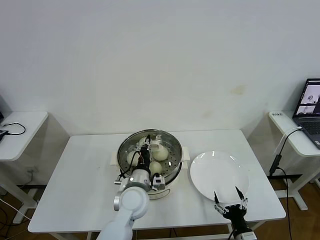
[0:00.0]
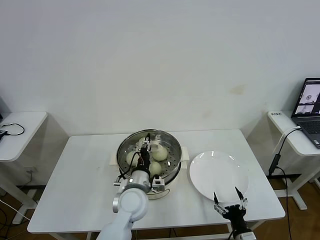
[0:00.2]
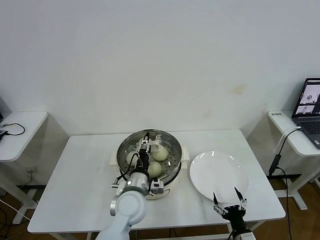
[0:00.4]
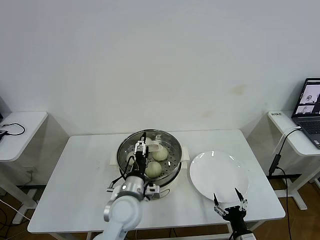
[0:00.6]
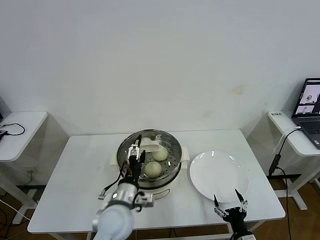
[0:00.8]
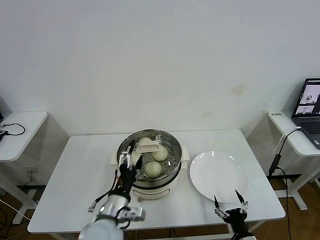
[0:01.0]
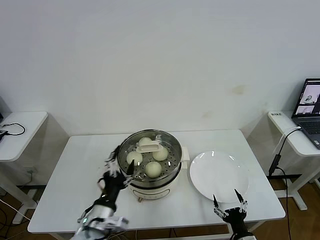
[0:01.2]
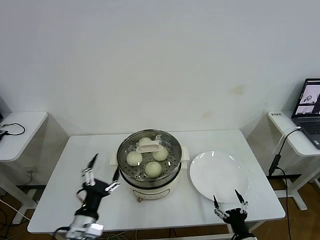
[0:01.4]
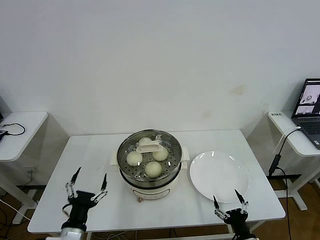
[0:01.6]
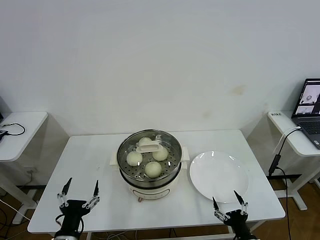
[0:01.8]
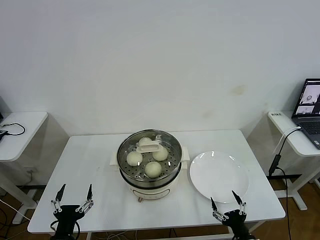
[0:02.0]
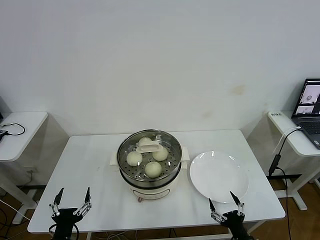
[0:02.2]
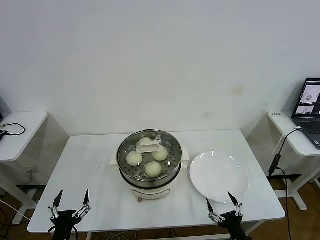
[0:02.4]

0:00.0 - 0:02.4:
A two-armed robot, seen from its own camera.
Task of the whole recording: take steamed baozi put them in steamer then cover it.
0:00.0 - 0:01.2: The left gripper is displaced backward and to the left by some 15 cm, and opens up.
0:01.2 - 0:02.4: The left gripper travels to the left, backward and downward by approximately 15 cm.

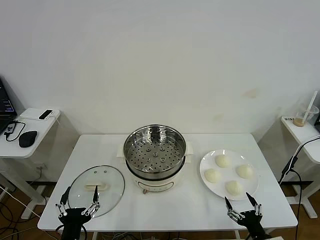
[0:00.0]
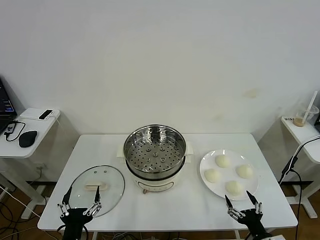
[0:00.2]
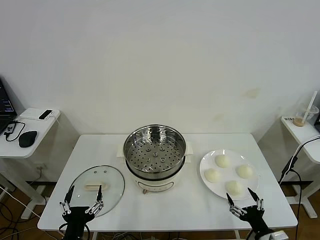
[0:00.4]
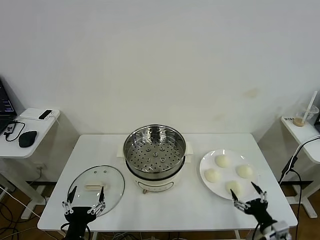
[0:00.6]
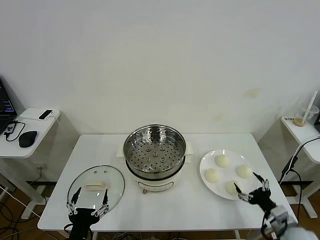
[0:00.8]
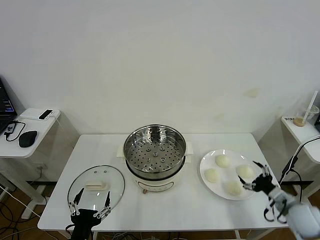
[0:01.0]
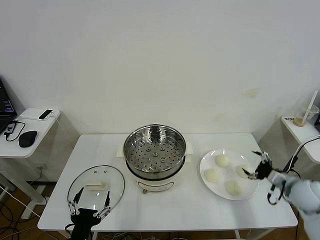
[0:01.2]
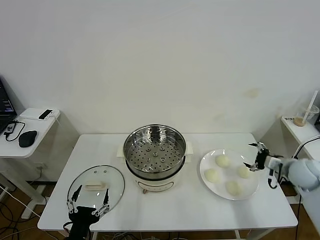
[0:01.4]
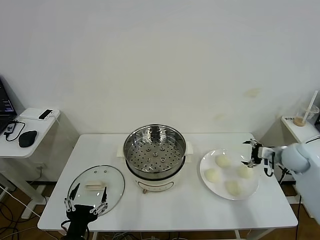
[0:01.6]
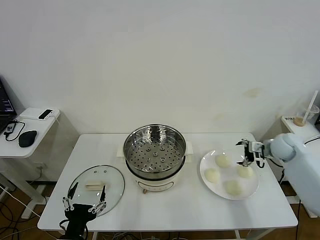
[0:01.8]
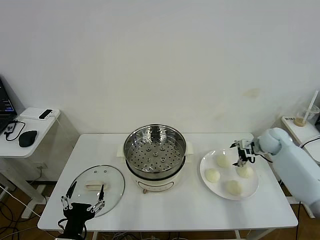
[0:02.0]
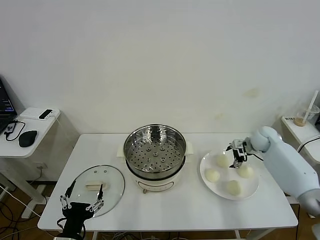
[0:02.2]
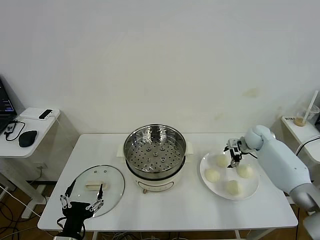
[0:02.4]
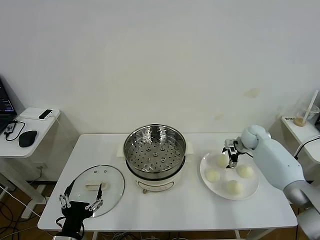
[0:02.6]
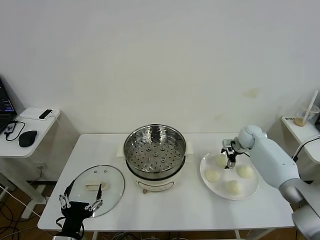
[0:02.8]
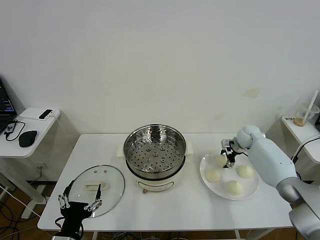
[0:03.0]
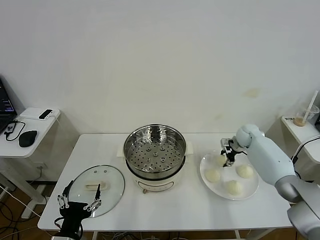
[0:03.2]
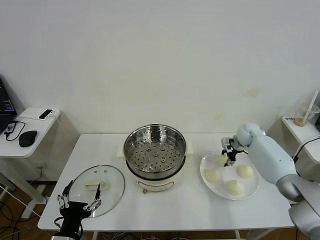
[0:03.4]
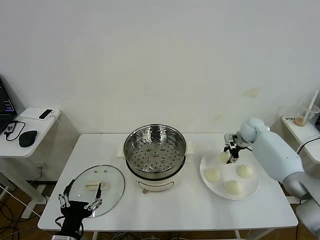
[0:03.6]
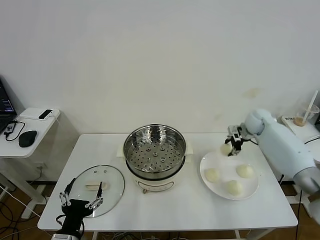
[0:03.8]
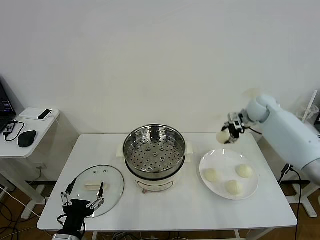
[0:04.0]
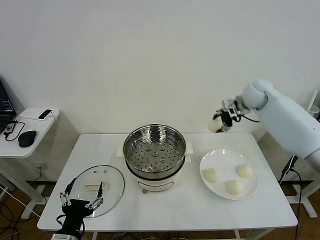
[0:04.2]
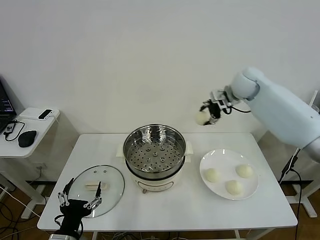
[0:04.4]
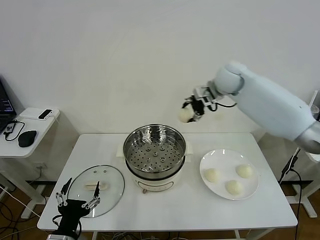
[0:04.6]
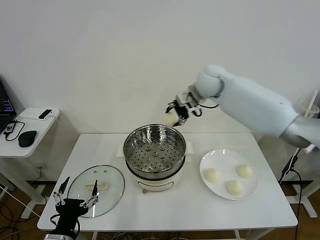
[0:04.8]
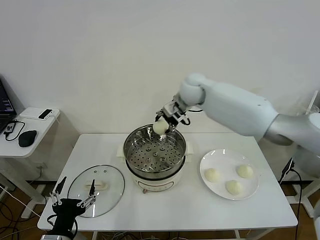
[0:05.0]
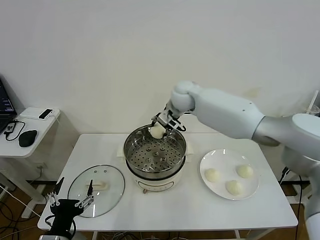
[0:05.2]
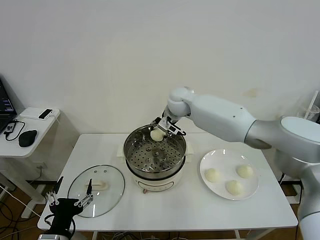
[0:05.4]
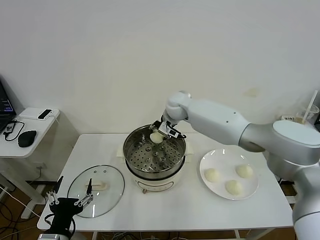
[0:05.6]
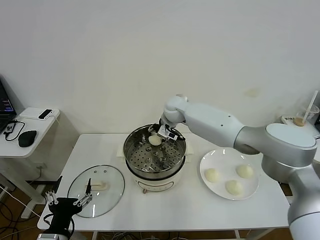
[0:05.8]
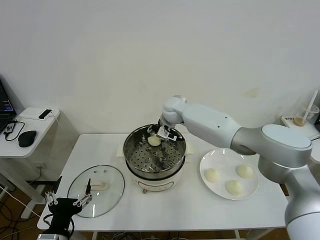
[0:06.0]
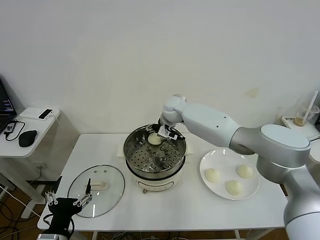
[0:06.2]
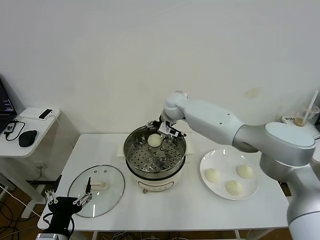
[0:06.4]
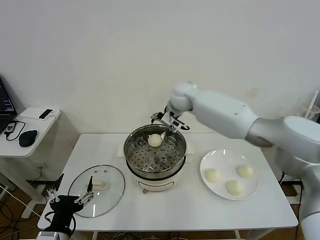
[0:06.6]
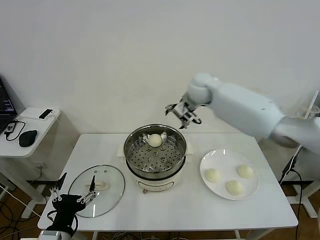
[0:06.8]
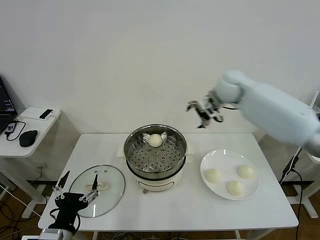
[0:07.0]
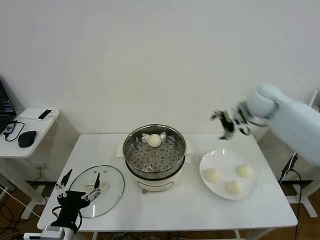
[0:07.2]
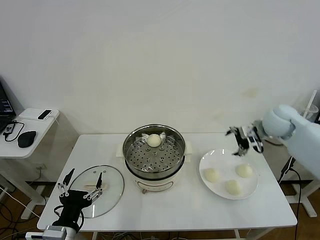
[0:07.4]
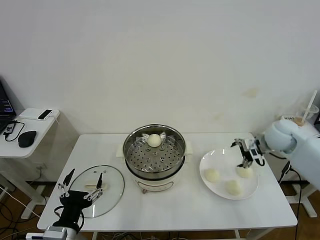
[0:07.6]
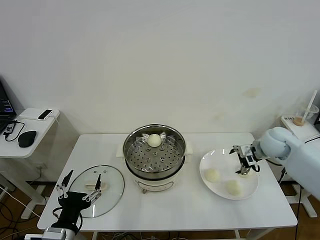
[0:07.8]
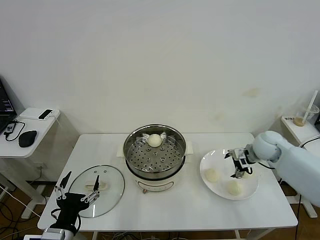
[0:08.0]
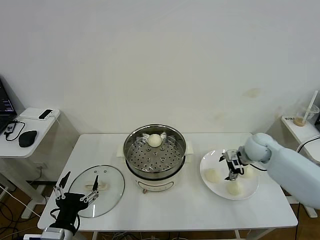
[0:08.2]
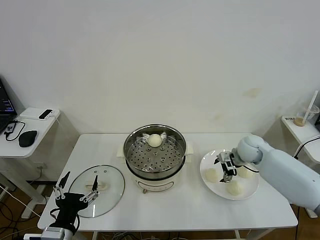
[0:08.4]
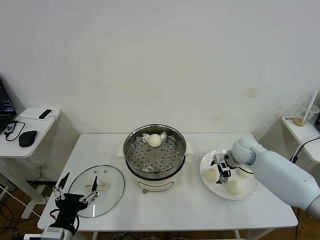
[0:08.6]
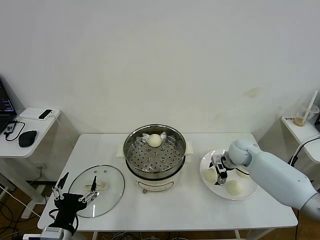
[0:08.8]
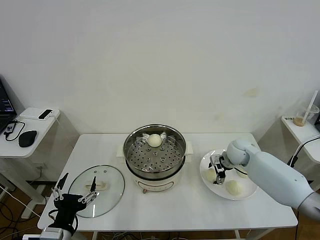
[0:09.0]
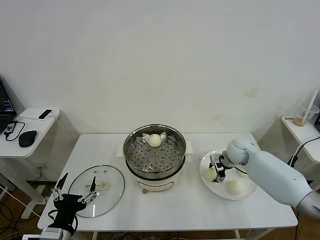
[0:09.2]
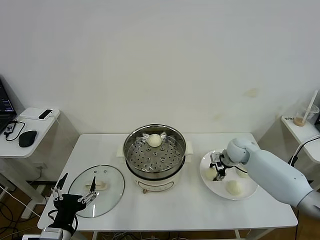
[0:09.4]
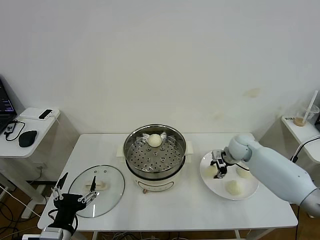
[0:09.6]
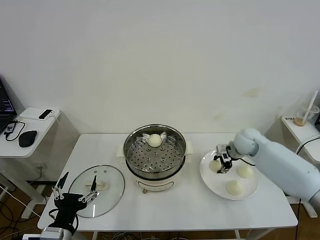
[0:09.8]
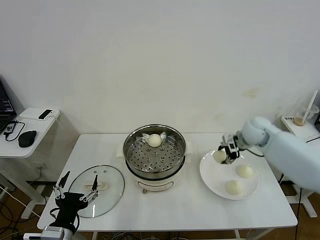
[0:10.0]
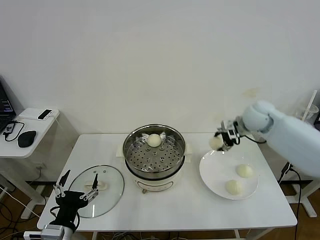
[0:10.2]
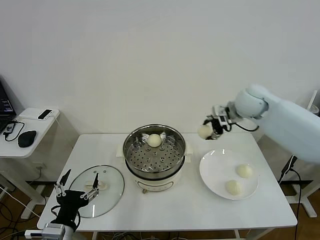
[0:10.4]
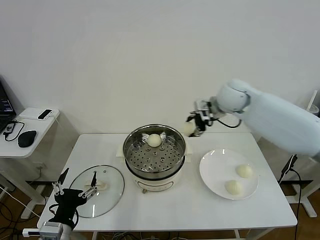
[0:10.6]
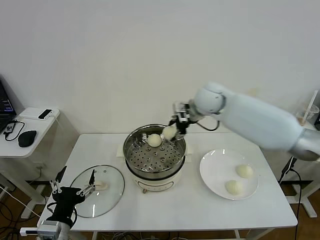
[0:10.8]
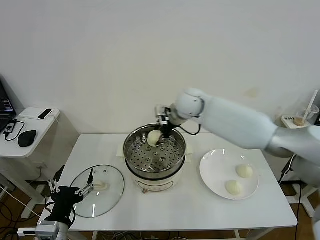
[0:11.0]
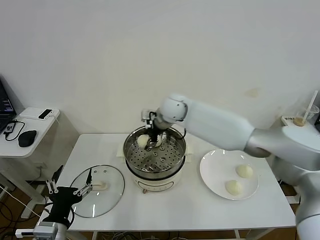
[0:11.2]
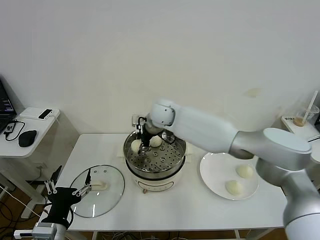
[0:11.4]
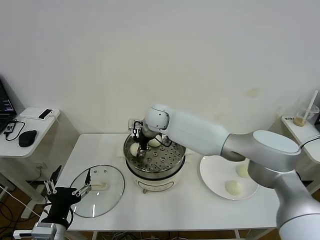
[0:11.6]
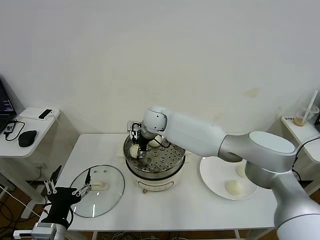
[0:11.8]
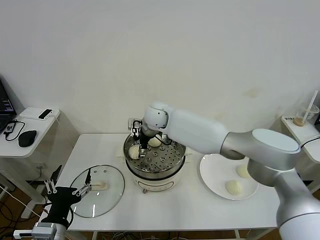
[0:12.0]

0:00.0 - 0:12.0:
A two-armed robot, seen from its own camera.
Task of the whole recording: take steamed baozi put them in steamer then cover it.
Step, 0:00.0 - 0:03.2: Grasp the baozi in the plate with right gripper.
Step, 0:03.4 - 0:06.4: Place the baozi on the steamer with right gripper.
Step, 0:06.6 - 0:09.2: Grasp the baozi in the plate with right gripper.
0:01.6 - 0:03.0: The right gripper goes approximately 15 cm forward, to the left and downward, and closes.
0:03.0 - 0:04.4: The right gripper shifts approximately 30 cm upward and to the left.
0:04.4 - 0:06.0: The right gripper travels to the left and downward by approximately 25 cm.
0:06.0 - 0:07.6: The right gripper shifts about 35 cm to the right and backward, and opens.
0:07.6 - 0:09.0: The right gripper heads downward and to the left, covering some 15 cm.
0:09.0 - 0:10.4: The right gripper moves upward, roughly 25 cm, and closes its fingers.
0:10.4 - 0:12.0: The right gripper heads to the left, covering approximately 25 cm, and opens up.

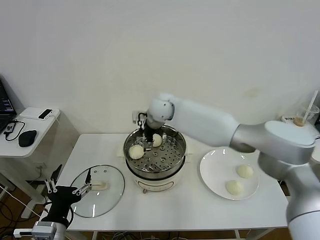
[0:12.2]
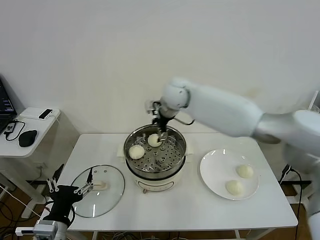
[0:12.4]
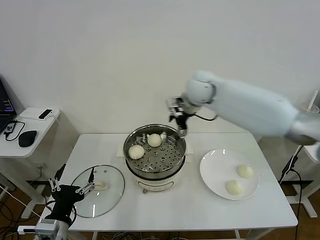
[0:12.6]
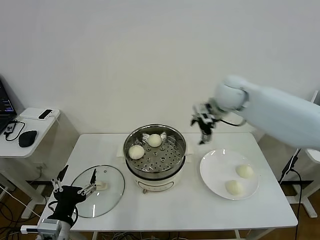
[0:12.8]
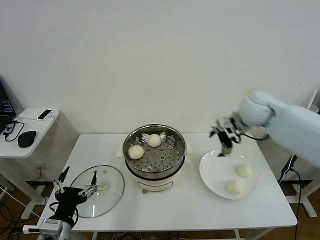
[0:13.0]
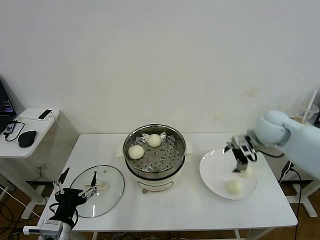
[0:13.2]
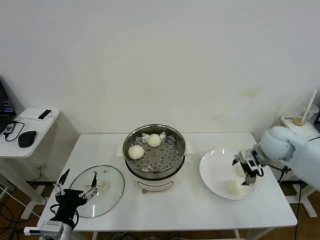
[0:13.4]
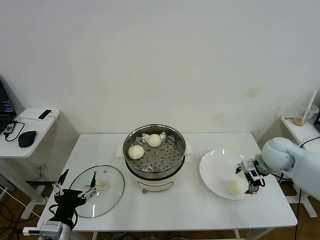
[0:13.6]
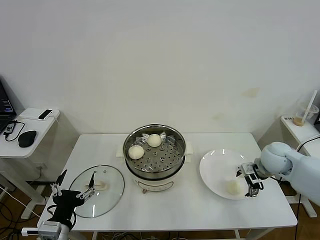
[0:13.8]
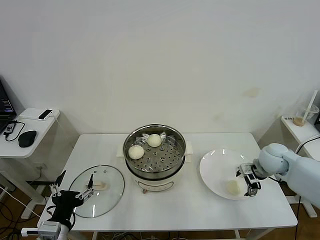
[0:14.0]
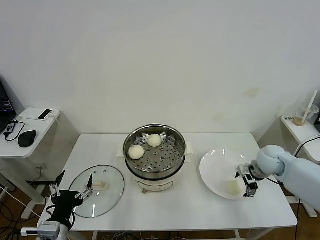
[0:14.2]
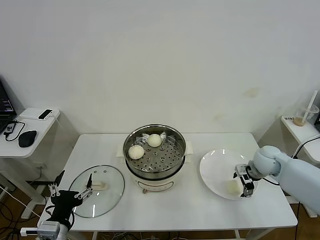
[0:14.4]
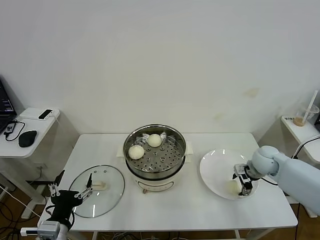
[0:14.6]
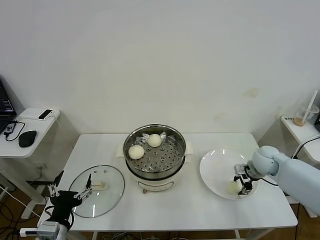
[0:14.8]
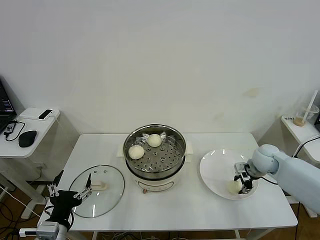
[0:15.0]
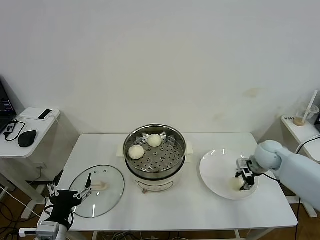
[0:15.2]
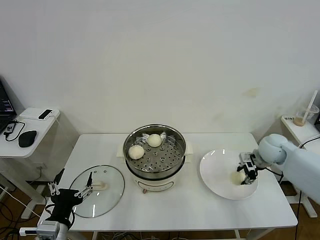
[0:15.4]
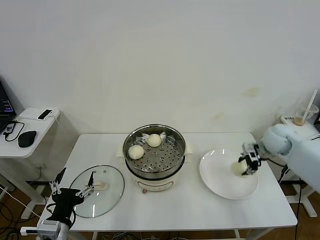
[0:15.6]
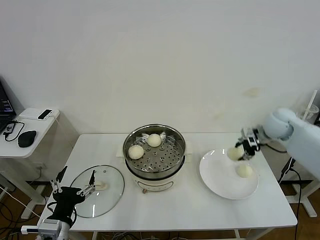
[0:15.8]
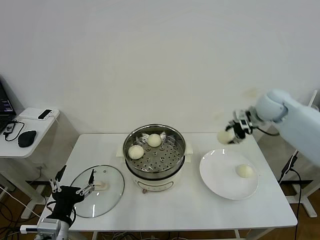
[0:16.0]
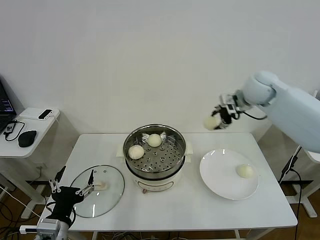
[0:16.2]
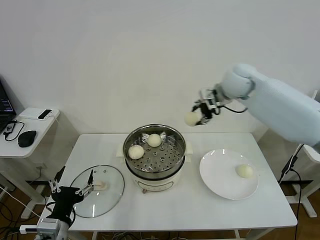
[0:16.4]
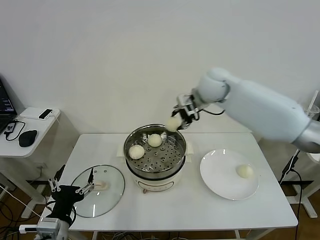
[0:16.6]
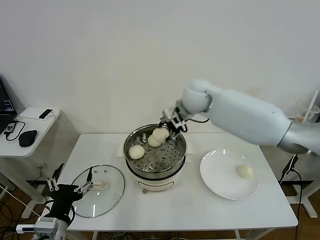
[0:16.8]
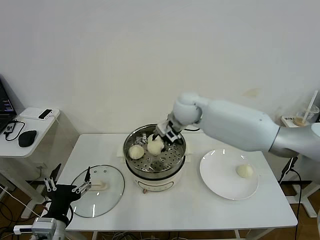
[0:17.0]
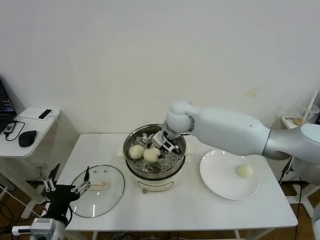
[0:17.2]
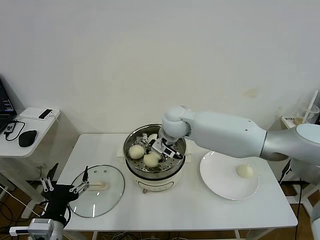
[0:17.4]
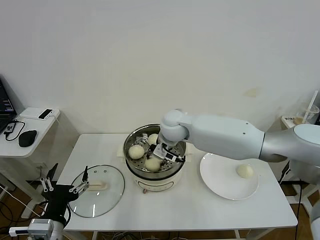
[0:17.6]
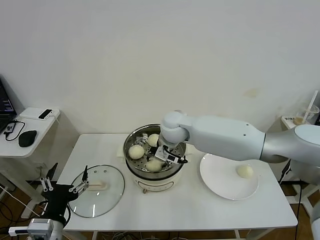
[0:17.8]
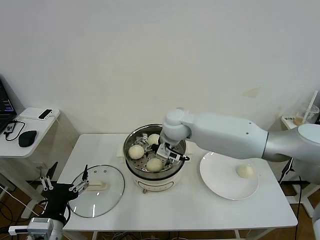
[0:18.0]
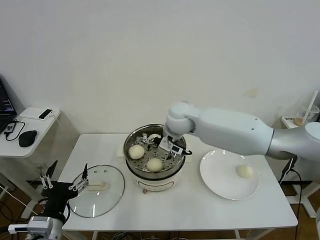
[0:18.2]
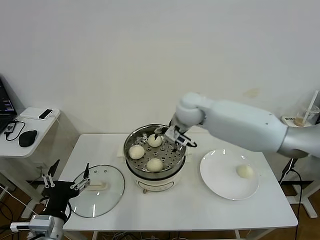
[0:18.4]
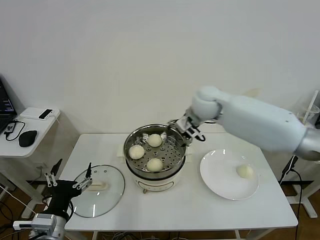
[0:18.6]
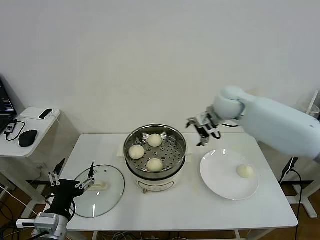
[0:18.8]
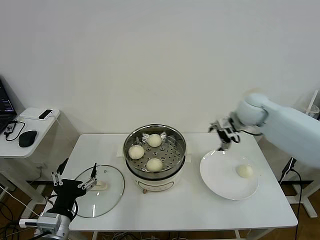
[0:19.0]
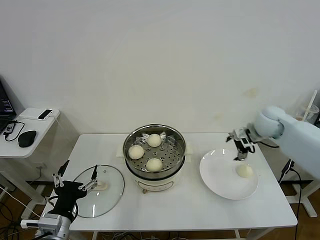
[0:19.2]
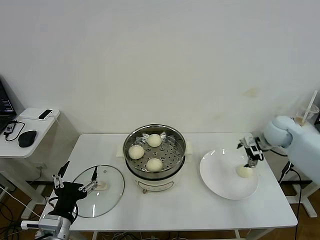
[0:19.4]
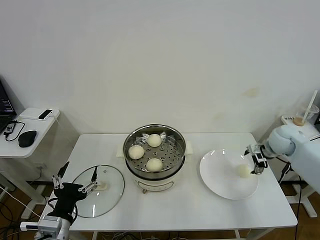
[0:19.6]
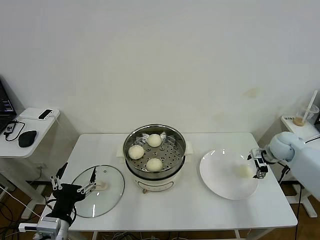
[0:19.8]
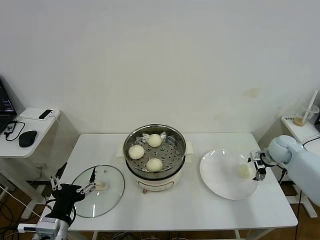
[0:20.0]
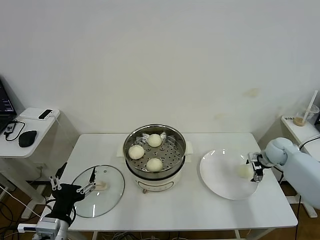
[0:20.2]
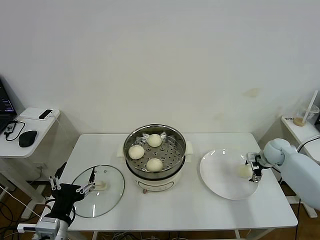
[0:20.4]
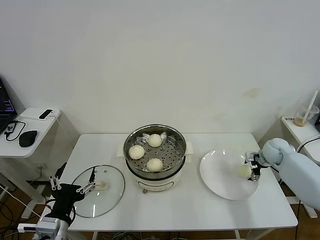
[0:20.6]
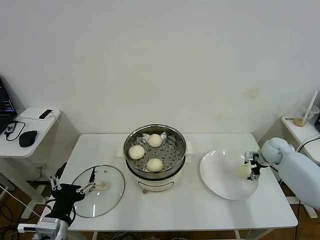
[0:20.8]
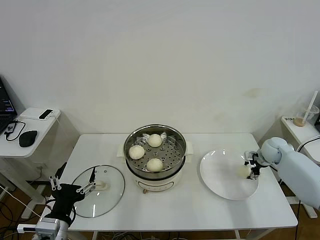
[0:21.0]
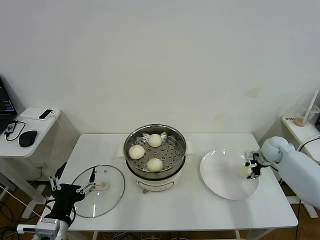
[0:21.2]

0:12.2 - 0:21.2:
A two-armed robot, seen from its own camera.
Task of the whole recording: take steamed baozi put them in steamer then cover it.
Step, 0:12.4 - 0:14.8: Grasp the baozi in the plate with right gripper.
Step, 0:15.2 - 0:18.0: Place the baozi on the steamer with right gripper.
Step, 0:18.4 - 0:21.2: Grasp the baozi in the plate with right gripper.
0:12.2 - 0:13.8: The right gripper is displaced to the right by some 35 cm.
0:13.8 - 0:15.2: The right gripper closes up.
0:15.2 - 0:16.6: The right gripper moves to the left and upward, roughly 30 cm.
0:16.6 - 0:18.2: The right gripper moves downward and to the left, about 10 cm, and opens its fingers.
0:18.2 - 0:19.8: The right gripper is displaced to the right by about 40 cm.
0:19.8 - 0:21.2: The right gripper changes place by about 5 cm, and closes.
